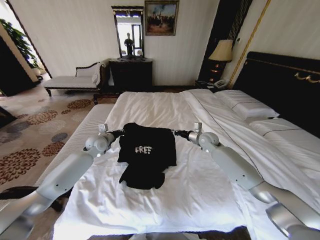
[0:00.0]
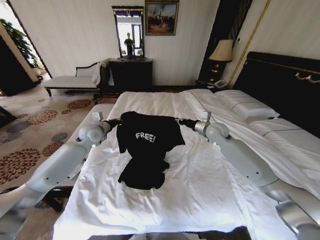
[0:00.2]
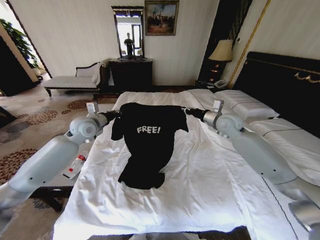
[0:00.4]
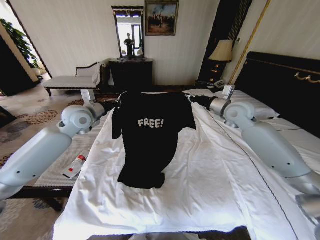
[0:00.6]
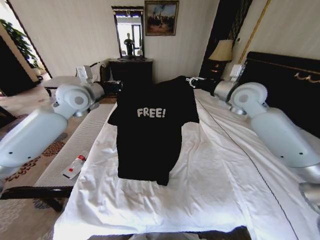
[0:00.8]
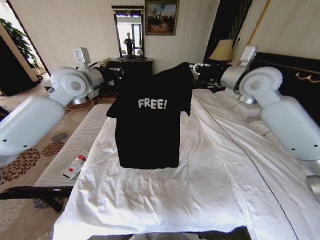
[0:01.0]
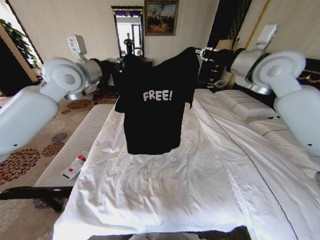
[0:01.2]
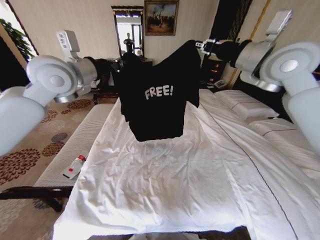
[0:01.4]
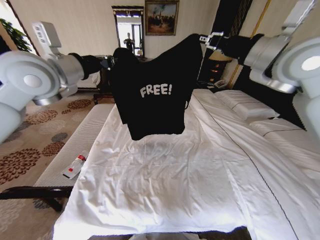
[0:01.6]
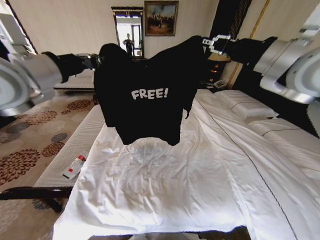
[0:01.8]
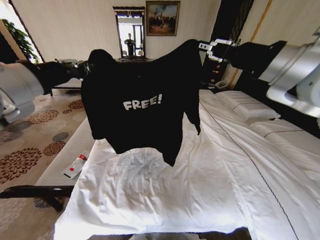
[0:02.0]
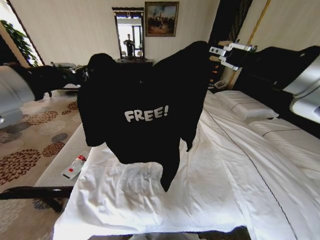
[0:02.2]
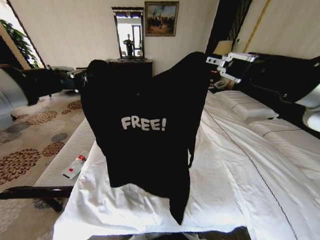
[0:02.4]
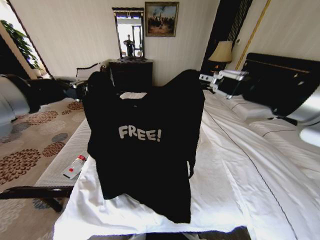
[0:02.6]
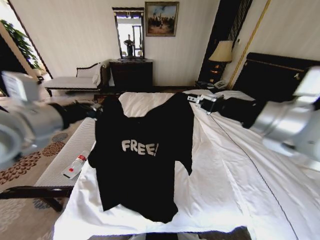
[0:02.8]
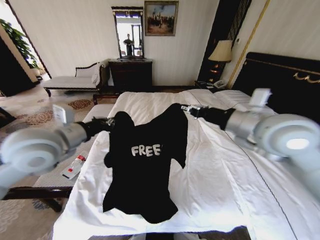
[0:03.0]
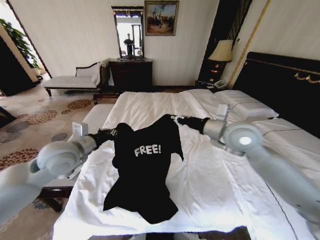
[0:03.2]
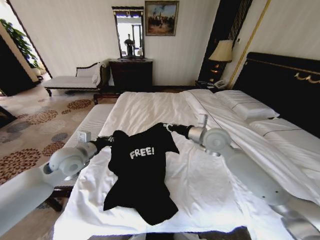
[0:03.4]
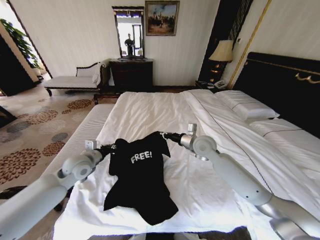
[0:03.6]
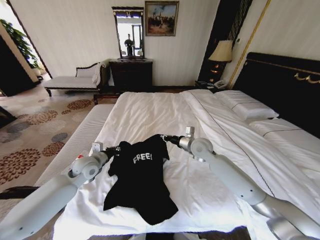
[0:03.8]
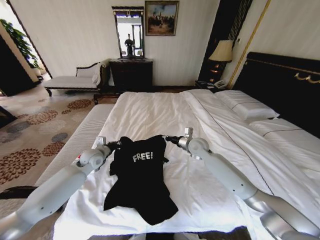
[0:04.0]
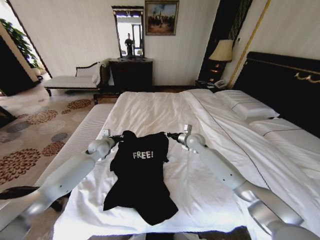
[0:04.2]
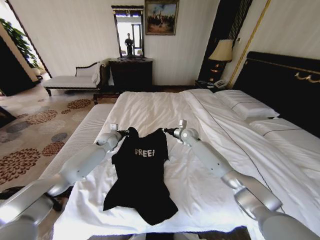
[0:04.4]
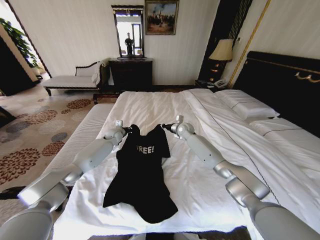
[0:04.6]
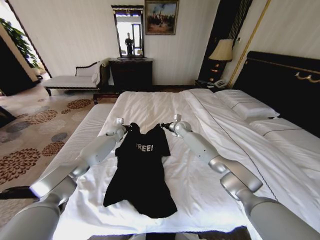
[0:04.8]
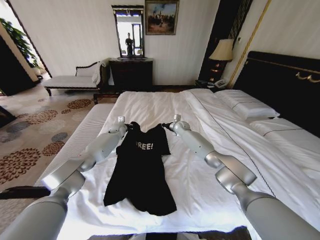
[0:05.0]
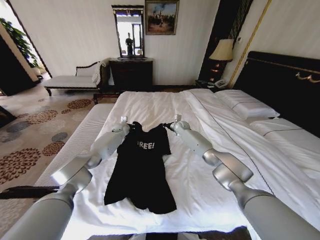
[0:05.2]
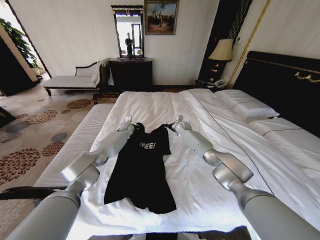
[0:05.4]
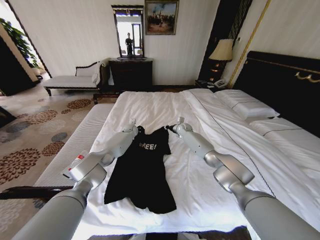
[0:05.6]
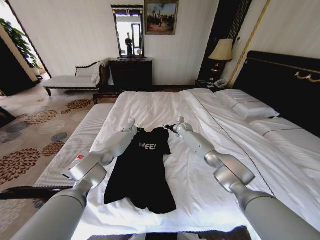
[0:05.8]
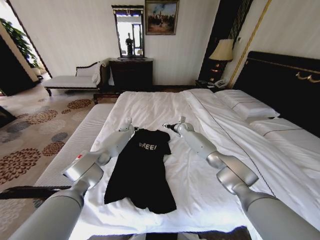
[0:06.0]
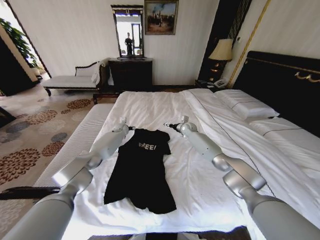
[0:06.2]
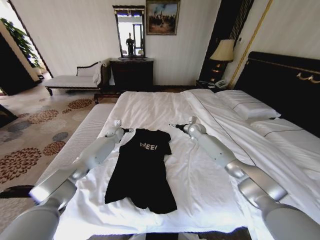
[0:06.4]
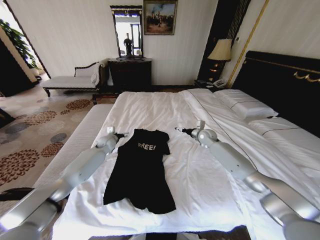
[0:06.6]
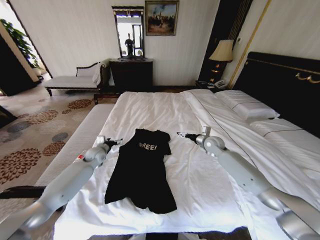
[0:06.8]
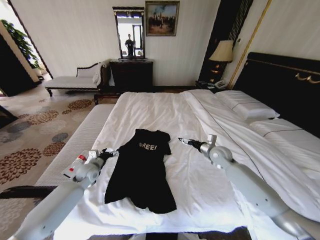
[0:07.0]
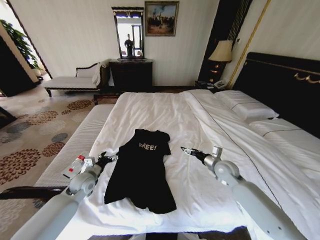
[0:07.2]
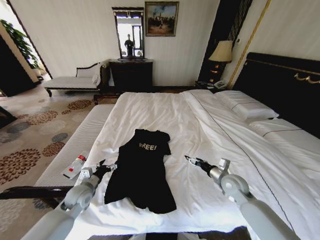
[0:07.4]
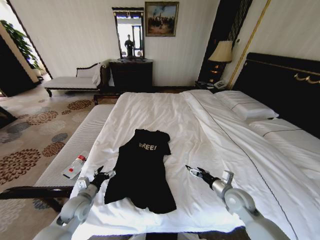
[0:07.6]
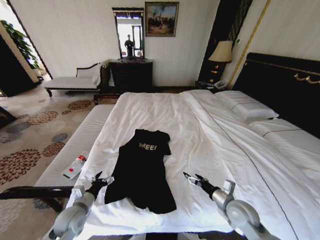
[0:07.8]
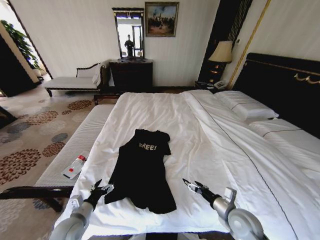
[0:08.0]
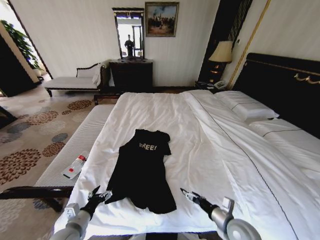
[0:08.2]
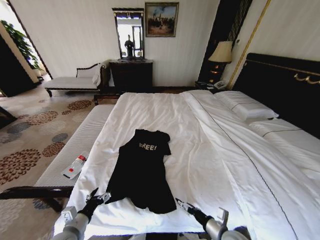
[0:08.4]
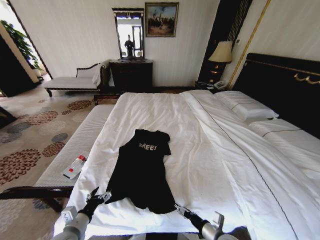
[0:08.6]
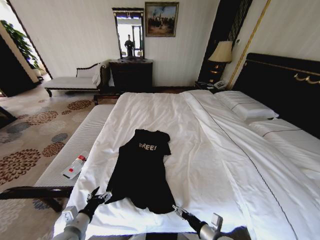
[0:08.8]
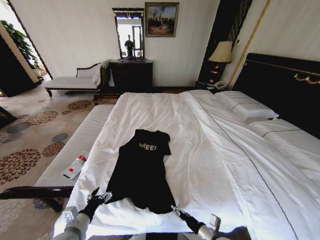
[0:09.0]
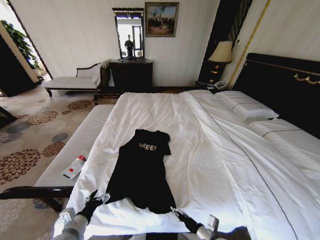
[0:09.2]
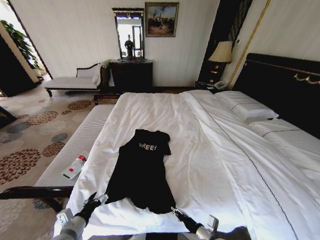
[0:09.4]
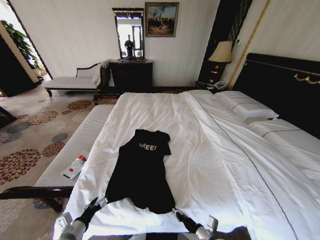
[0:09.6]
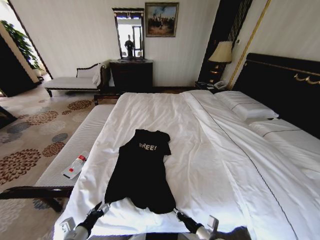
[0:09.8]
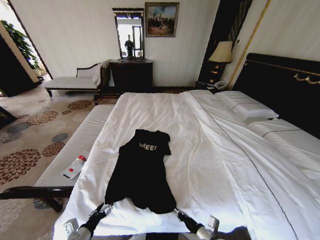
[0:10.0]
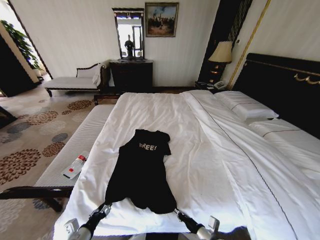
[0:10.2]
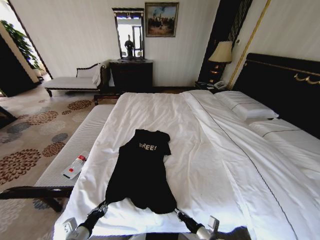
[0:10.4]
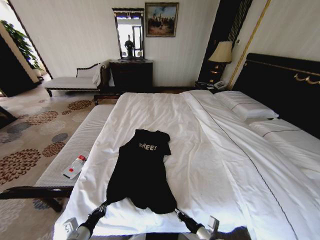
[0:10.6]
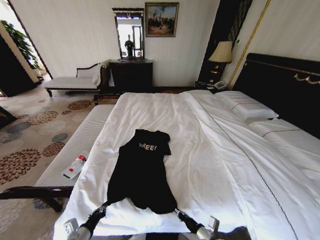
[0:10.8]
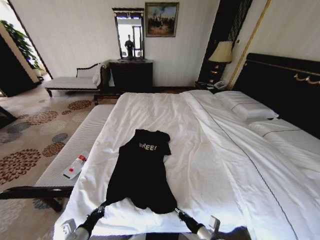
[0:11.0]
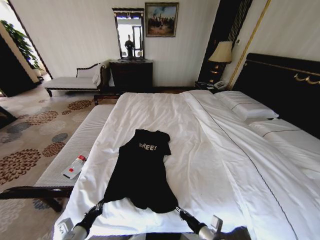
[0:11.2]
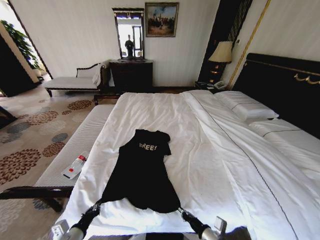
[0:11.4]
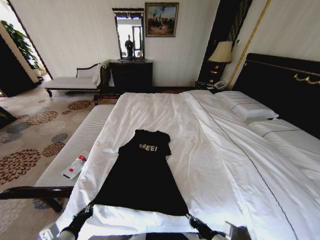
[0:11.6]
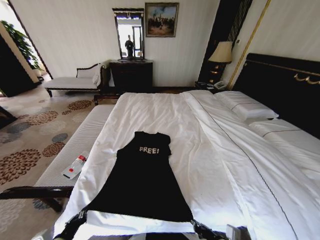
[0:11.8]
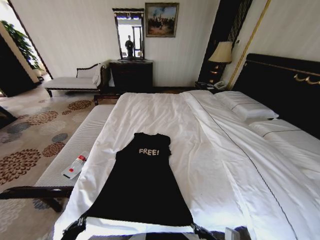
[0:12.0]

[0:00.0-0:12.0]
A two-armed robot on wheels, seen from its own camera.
Task of the whole recording: Fold the clothes on the bed.
0:00.0 to 0:01.6: Both grippers move upward, some 35 cm.
0:01.6 to 0:03.0: Both grippers travel together downward and backward, about 15 cm.
0:03.0 to 0:04.4: Both grippers travel together forward and downward, approximately 35 cm.
0:04.4 to 0:06.0: The left gripper travels forward and to the right by about 15 cm, and opens up. The right gripper goes approximately 10 cm forward, and opens.
0:06.0 to 0:07.6: The grippers both shift backward by some 40 cm. The right gripper opens its fingers.
0:07.6 to 0:09.0: The left gripper goes some 10 cm backward. Meanwhile the right gripper moves backward, to the left and downward, about 20 cm.
0:09.0 to 0:10.4: The right gripper closes up; the left gripper closes its fingers.
0:10.4 to 0:12.0: The left gripper travels upward and backward by about 10 cm, and closes up. Meanwhile the right gripper heads upward, covering some 10 cm.

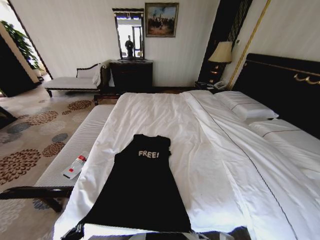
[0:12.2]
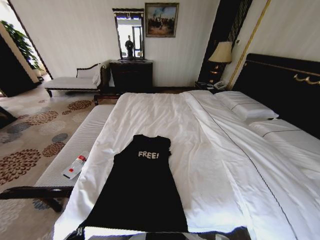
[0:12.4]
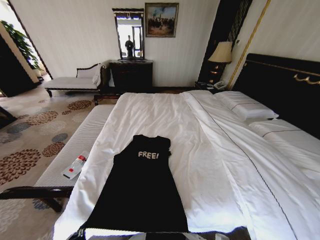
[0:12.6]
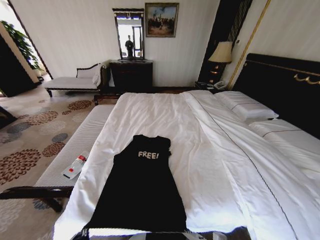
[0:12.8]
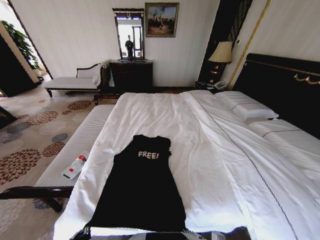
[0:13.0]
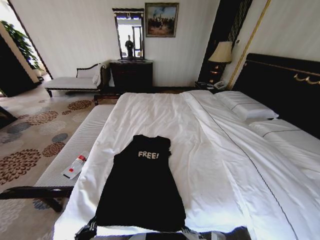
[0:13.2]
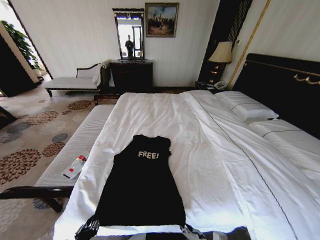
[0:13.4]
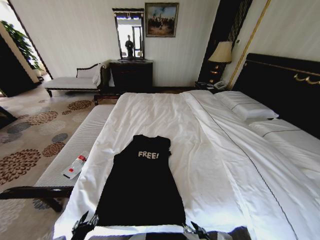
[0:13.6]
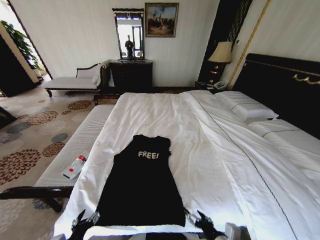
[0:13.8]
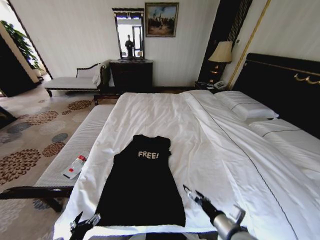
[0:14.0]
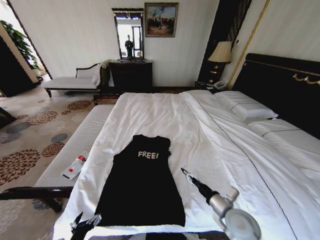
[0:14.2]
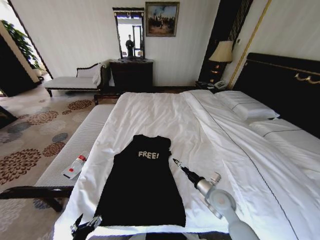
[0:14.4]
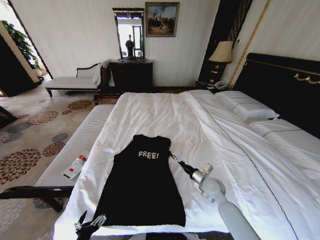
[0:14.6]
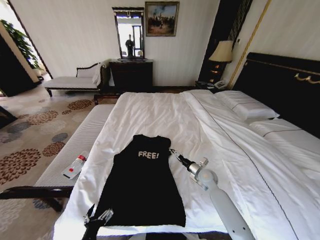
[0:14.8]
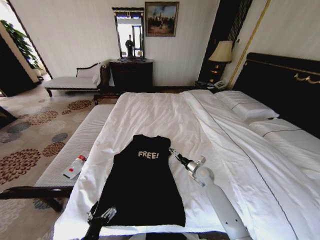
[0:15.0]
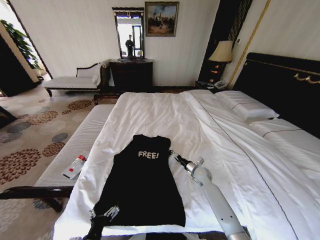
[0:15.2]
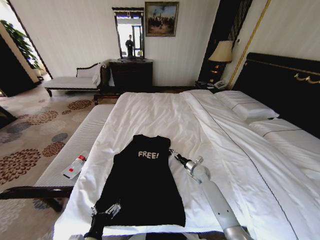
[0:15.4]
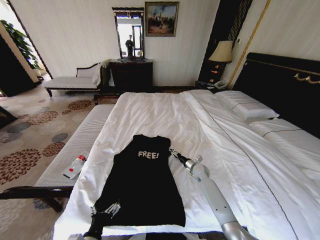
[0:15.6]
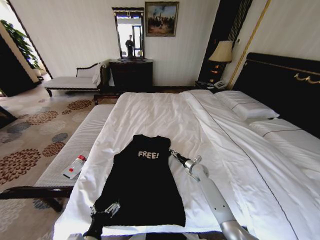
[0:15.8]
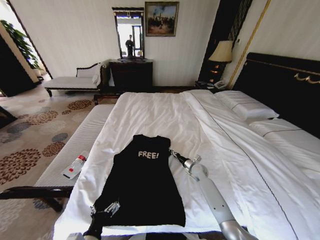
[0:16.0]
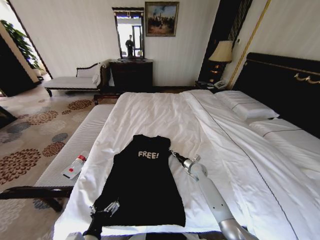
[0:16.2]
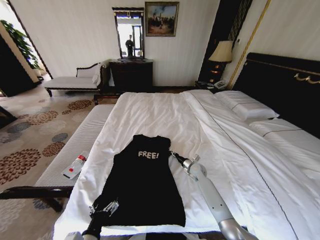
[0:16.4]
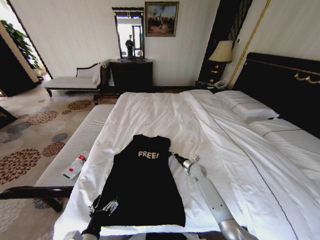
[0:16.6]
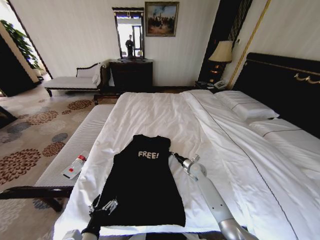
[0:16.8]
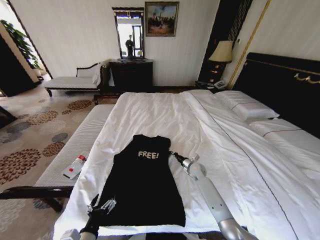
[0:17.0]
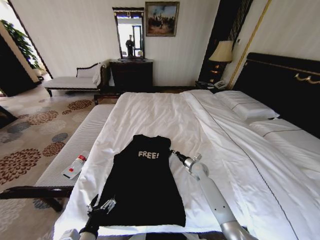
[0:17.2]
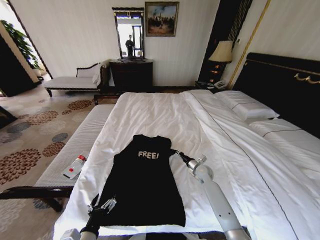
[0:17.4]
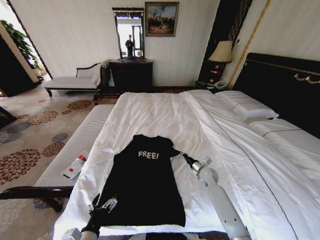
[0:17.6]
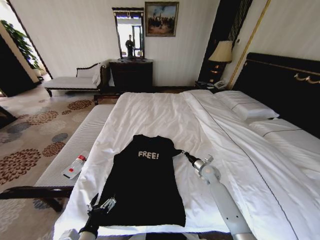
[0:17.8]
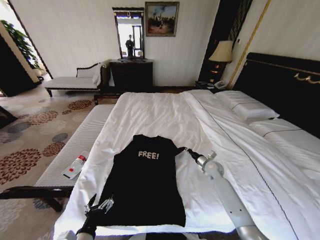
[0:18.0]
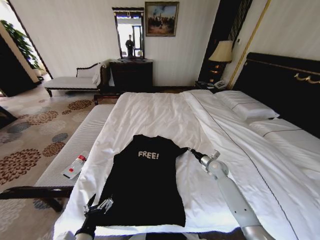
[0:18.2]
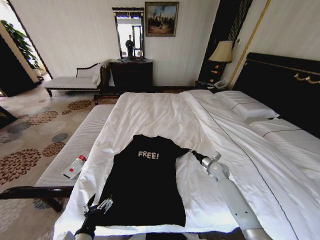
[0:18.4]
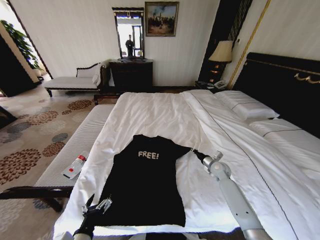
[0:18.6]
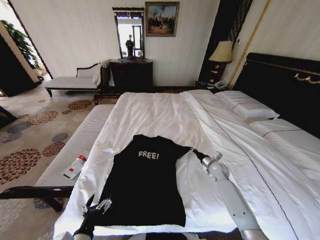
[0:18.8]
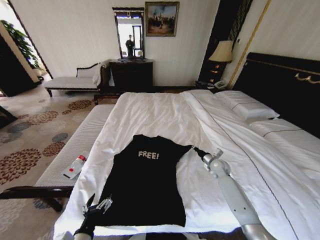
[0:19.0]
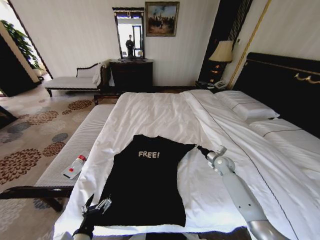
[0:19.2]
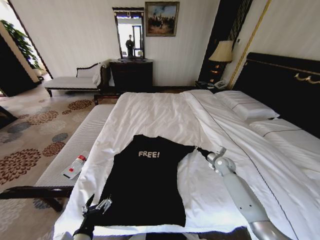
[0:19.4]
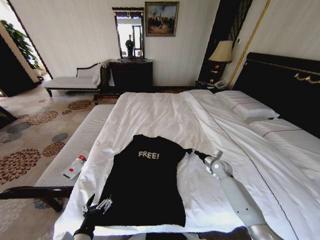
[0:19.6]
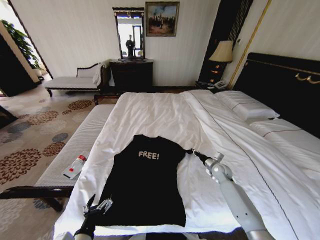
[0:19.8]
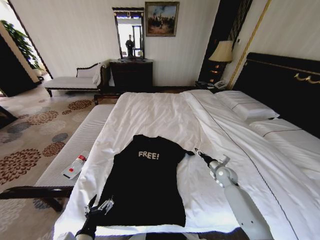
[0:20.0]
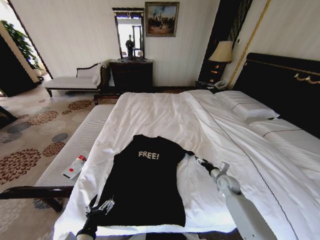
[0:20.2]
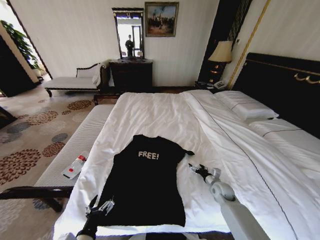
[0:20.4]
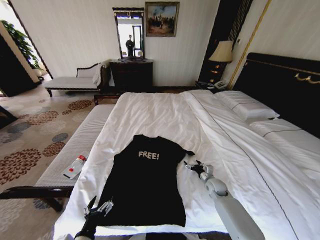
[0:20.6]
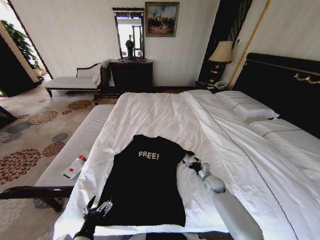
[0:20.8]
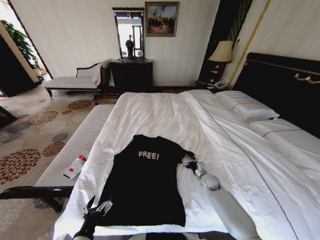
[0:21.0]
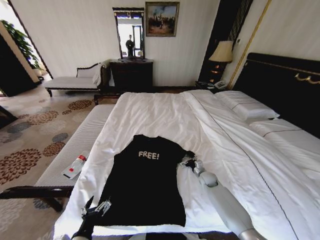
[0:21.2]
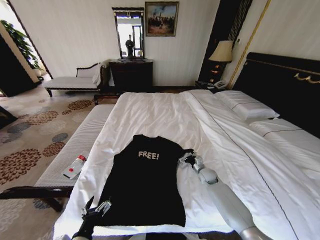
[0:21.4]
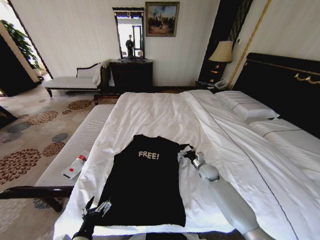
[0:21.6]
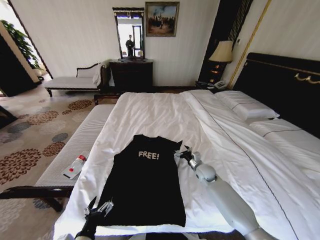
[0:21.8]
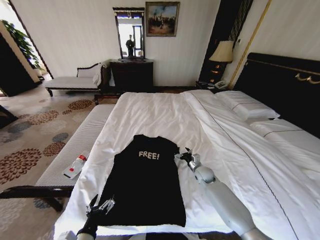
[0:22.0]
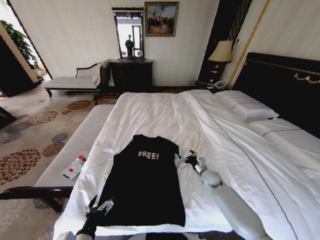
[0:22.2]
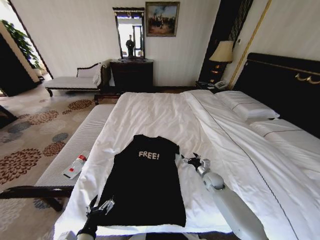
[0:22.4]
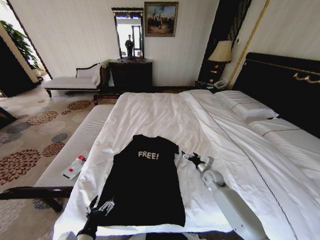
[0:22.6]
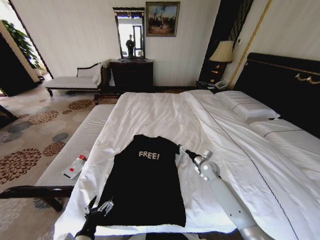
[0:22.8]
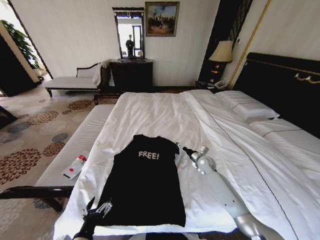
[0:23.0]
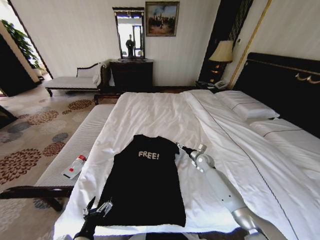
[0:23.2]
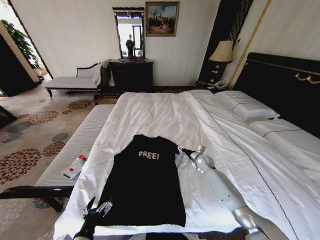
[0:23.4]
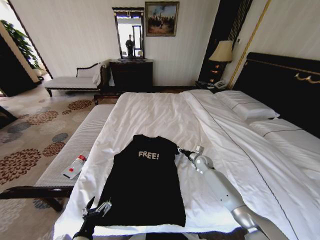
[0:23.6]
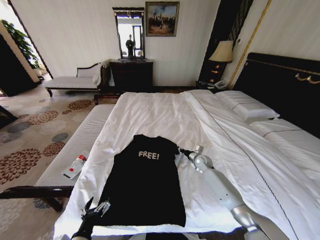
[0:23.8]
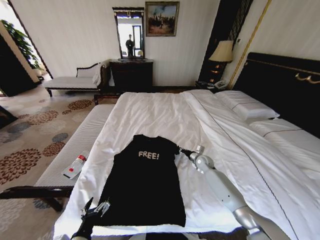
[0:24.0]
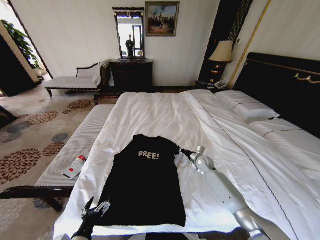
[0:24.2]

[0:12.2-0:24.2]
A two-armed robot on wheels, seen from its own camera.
Task of the whole recording: Fold the clothes on the bed.
0:12.2 to 0:13.8: The right gripper opens up. The left gripper opens up.
0:13.8 to 0:15.2: The right gripper shifts roughly 35 cm forward; the left gripper moves to the right, about 5 cm.
0:15.2 to 0:16.6: The right gripper closes its fingers.
0:16.6 to 0:18.2: The right gripper moves to the right and upward, roughly 10 cm.
0:18.2 to 0:19.8: The grippers make only small movements.
0:19.8 to 0:21.2: The right gripper is displaced downward and to the left by some 10 cm, goes backward and returns, approximately 10 cm each way, and opens.
0:22.6 to 0:24.2: The right gripper goes approximately 10 cm forward, and closes its fingers.
